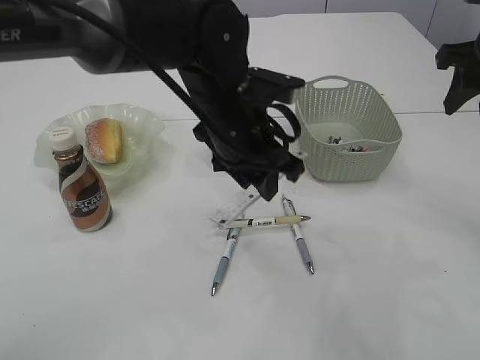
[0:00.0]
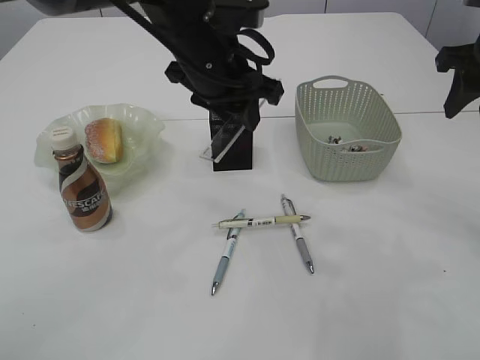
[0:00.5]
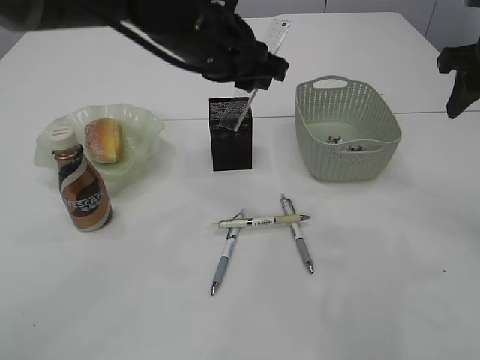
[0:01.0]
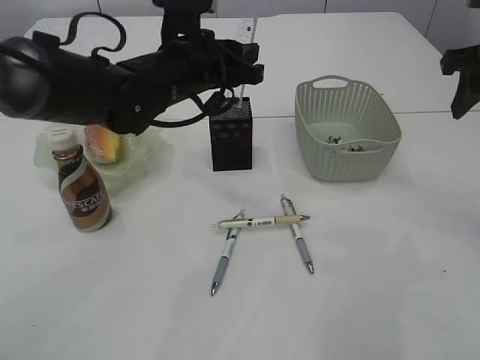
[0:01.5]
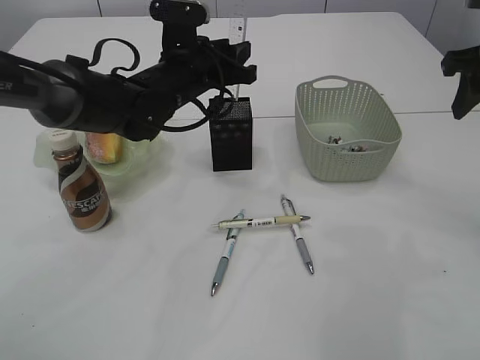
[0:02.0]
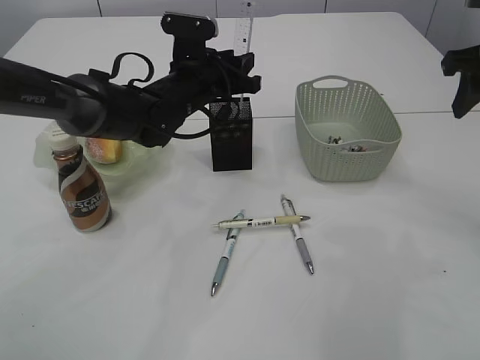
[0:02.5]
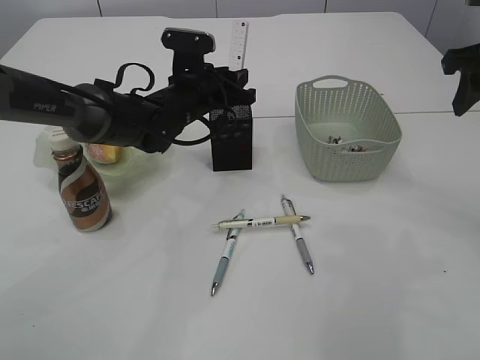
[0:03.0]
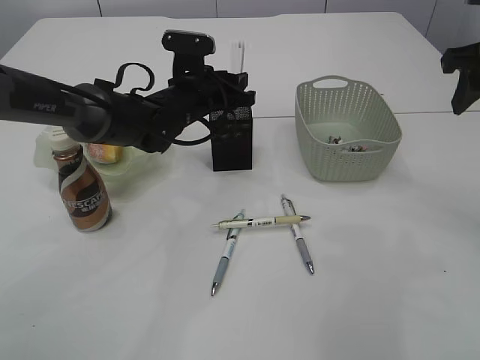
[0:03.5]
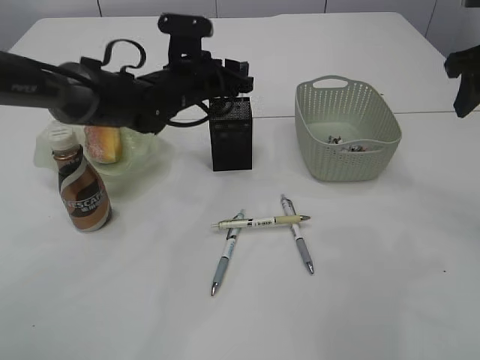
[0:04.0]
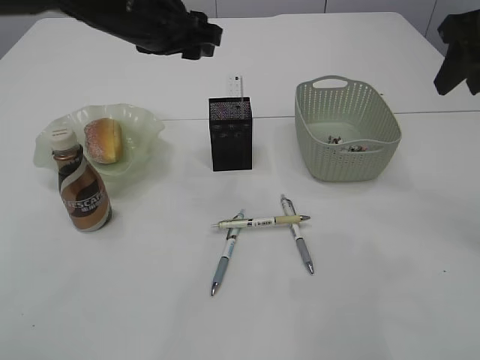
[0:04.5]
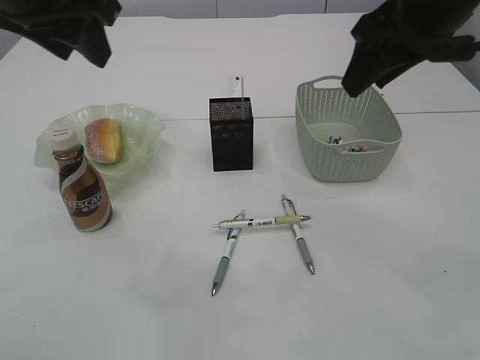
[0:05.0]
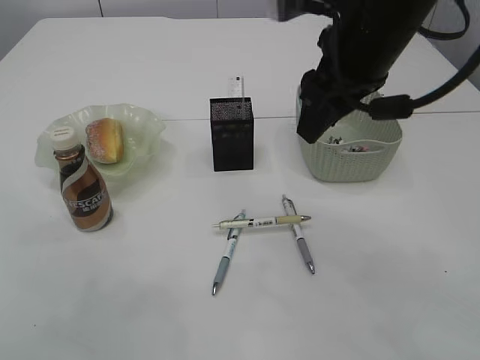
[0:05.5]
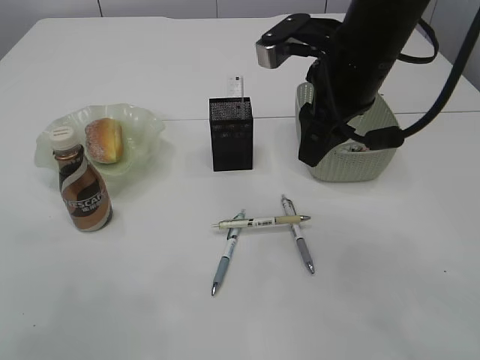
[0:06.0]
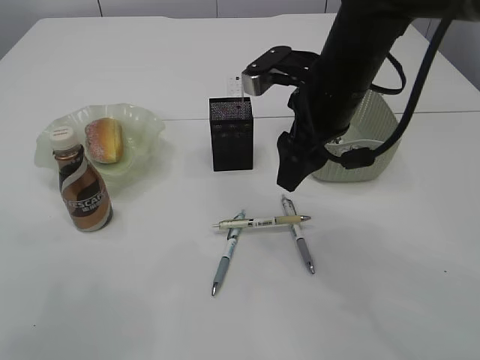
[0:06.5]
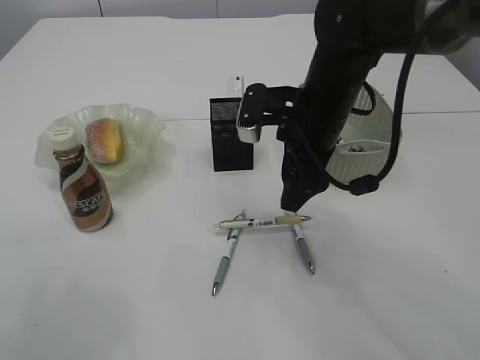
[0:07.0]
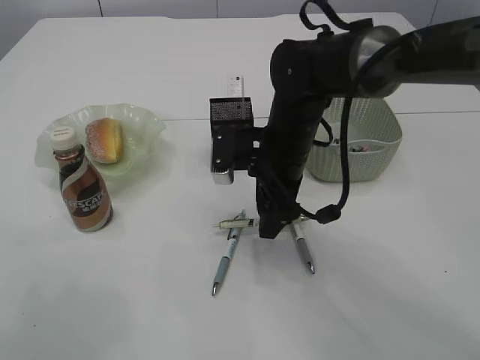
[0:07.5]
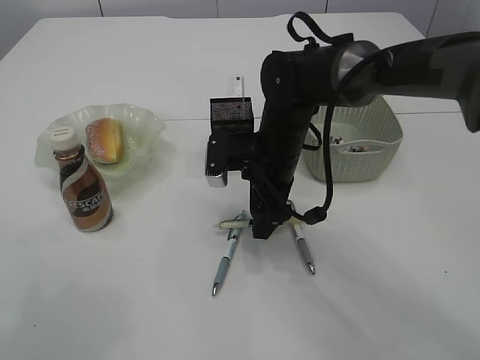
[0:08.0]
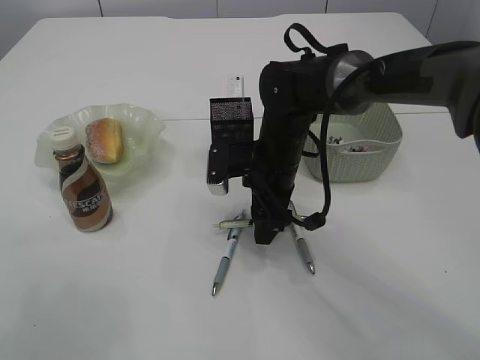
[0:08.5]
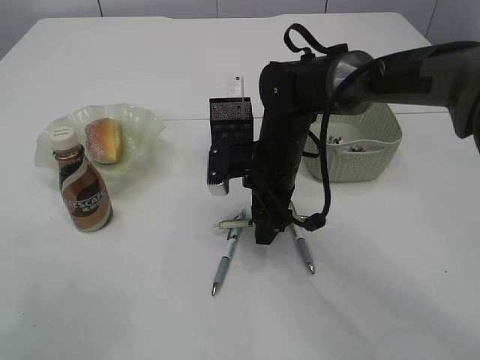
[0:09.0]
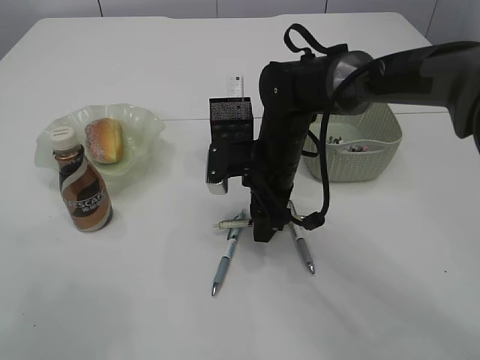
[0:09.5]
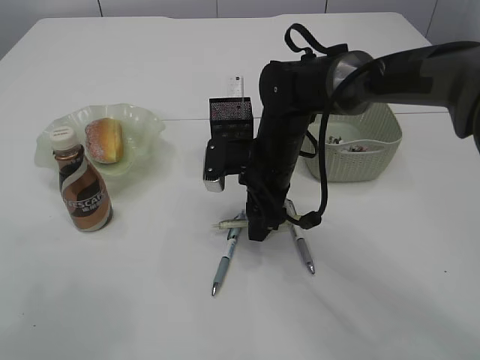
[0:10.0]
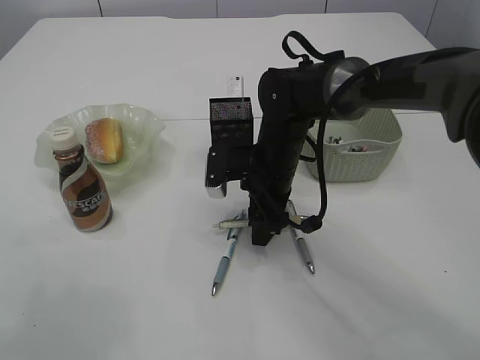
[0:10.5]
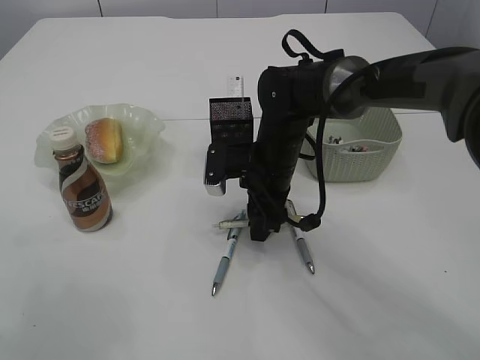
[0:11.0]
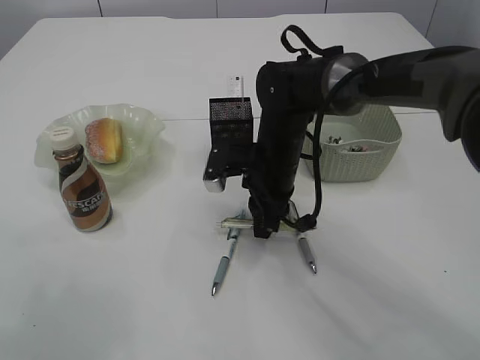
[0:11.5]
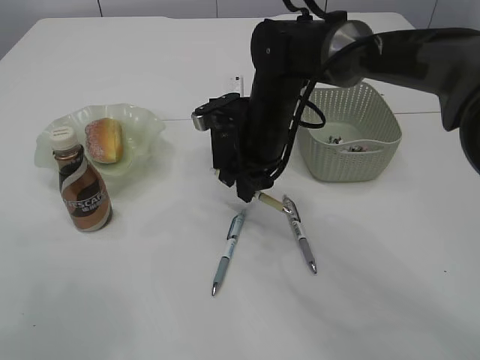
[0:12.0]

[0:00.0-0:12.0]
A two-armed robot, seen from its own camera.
Step, 0:00.0 to 0:04.0: Place the ruler into the pen holder.
0:00.0 to 0:02.0: The left gripper shifts approximately 10 cm forward and to the left.
0:02.0 to 0:04.0: The grippers move only a little.
0:04.0 to 0:06.0: The left gripper shifts roughly 35 cm upward, to the left and backward; the right gripper heads to the left, covering approximately 20 cm.
0:06.0 to 0:08.0: The right gripper travels downward and to the left by about 15 cm.
0:08.0 to 0:10.0: The two grippers keep their place.
0:10.0 to 0:12.0: The right gripper closes up.

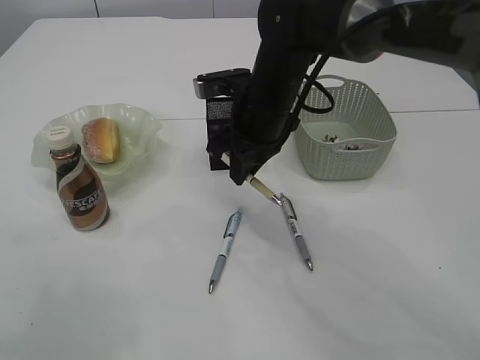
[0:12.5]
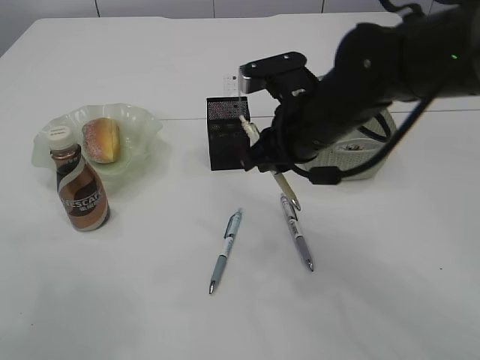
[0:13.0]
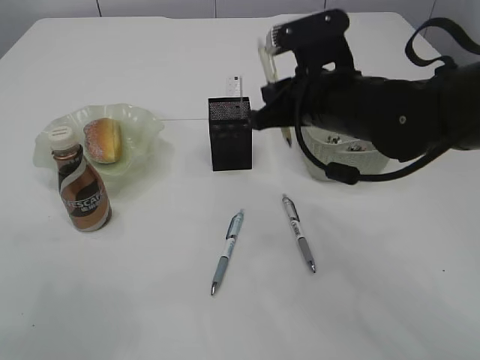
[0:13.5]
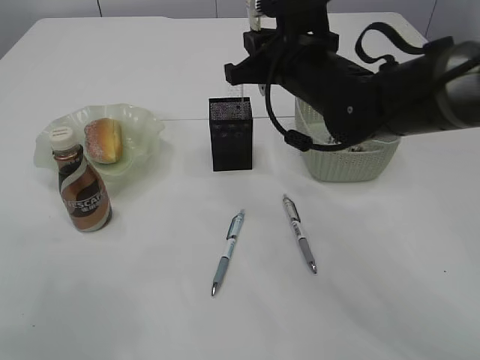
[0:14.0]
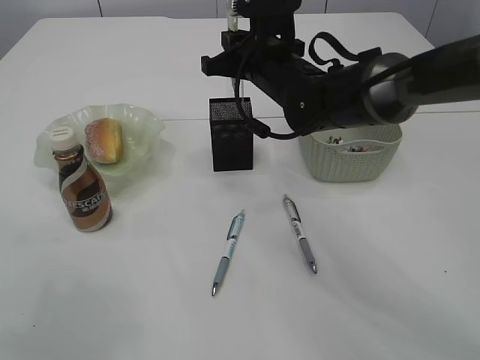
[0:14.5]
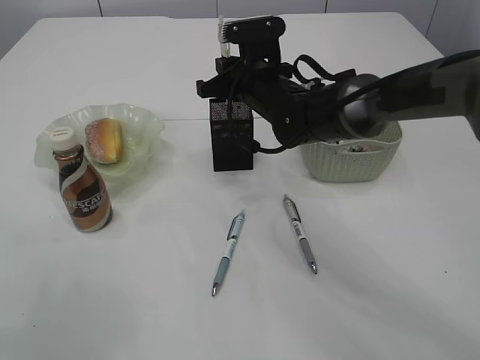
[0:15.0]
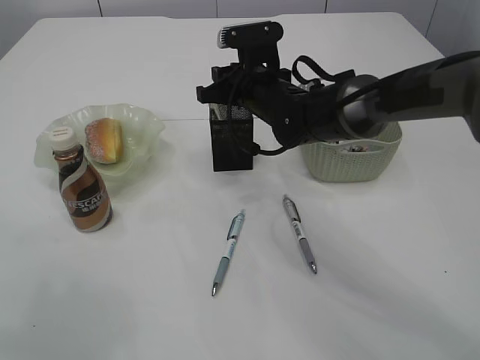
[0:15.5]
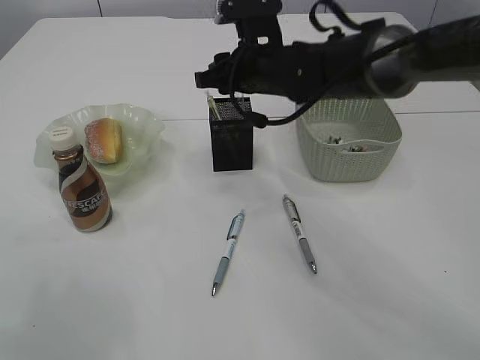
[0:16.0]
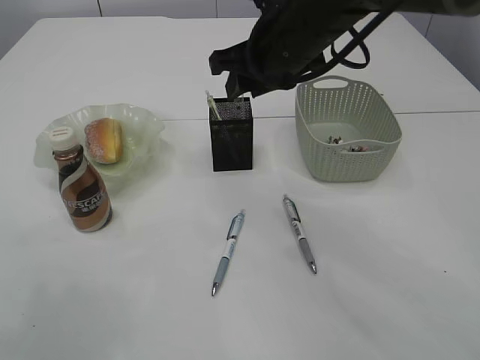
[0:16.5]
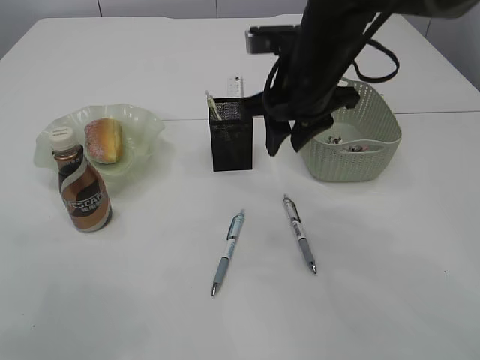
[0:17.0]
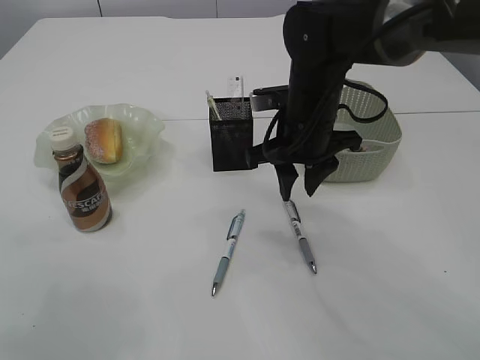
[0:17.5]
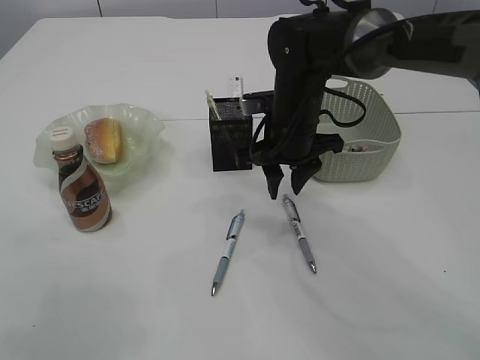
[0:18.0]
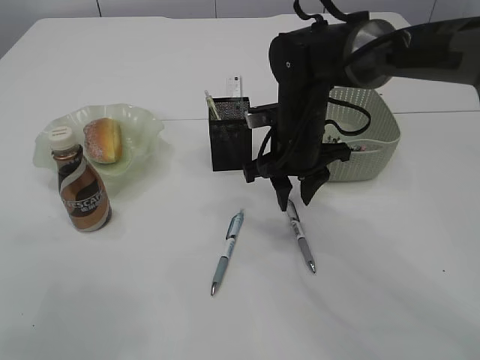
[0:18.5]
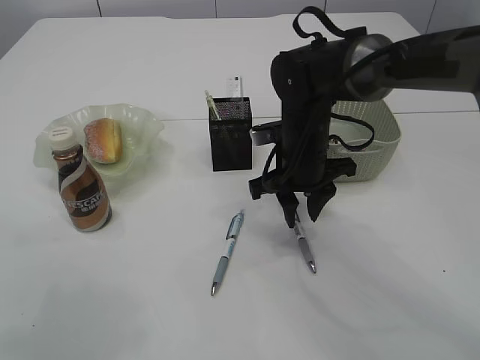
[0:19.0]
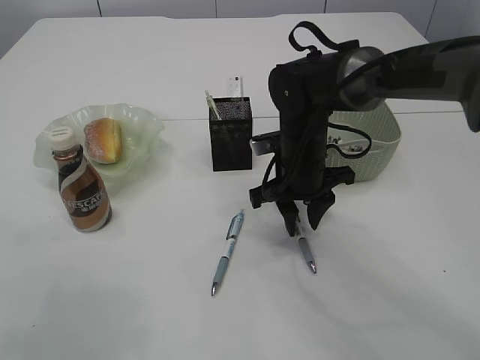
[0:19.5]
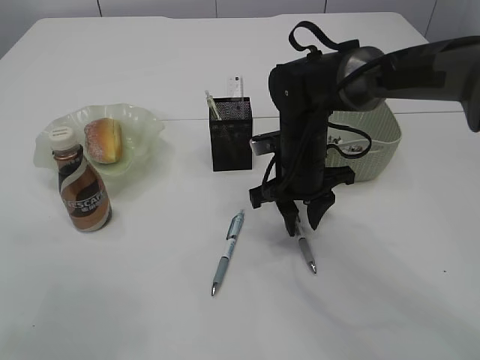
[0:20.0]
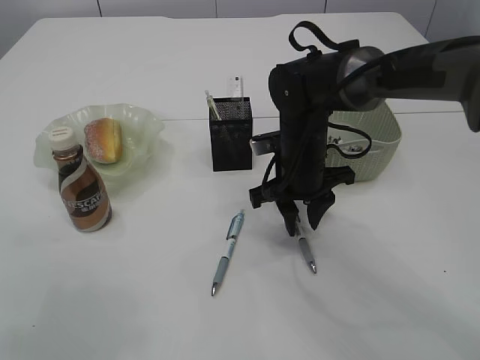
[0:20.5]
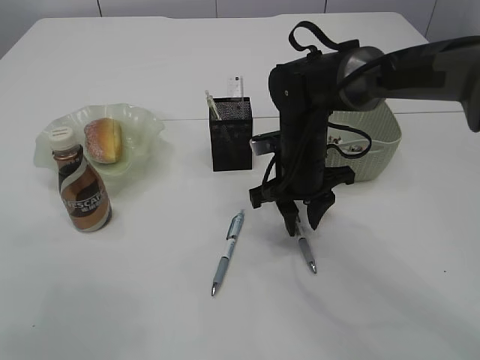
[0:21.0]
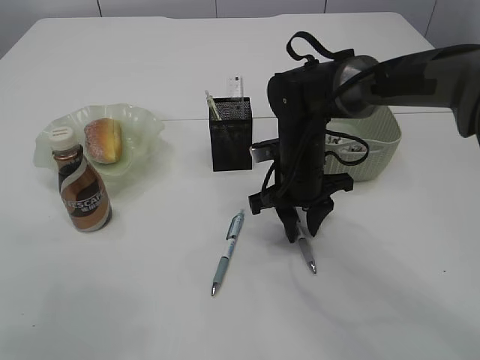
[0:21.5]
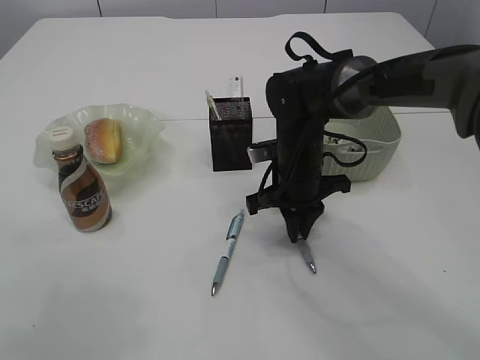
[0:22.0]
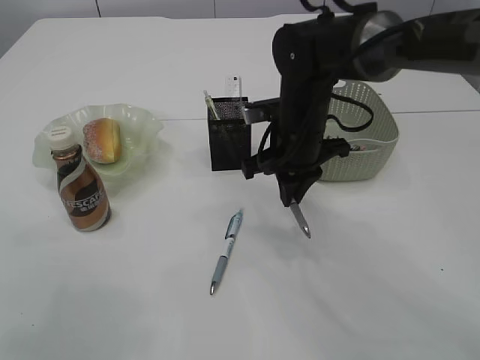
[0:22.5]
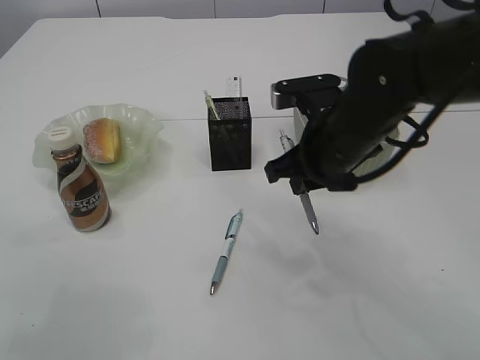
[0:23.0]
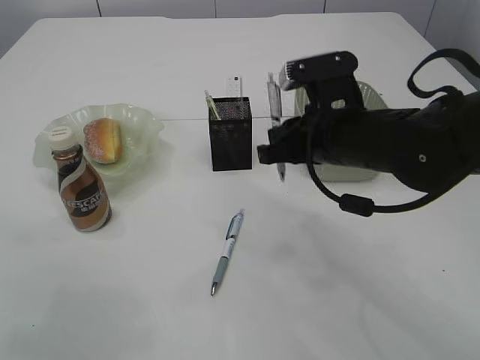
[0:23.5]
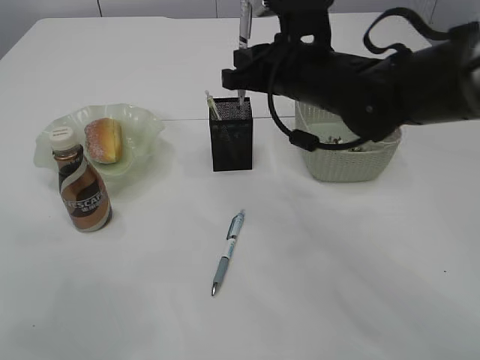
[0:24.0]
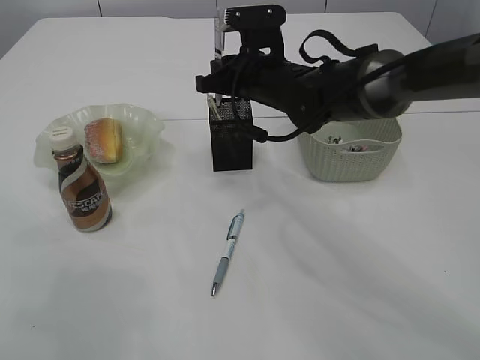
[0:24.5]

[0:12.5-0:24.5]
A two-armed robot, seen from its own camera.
Step, 0:13.0 to 0:16.0: Place the pen into the pen holder.
Step, 0:16.5 to 0:22.5: Pick up the pen with right arm.
0:12.5 to 0:14.5: The right gripper reaches about 5 cm backward, then returns.
0:14.5 to 0:16.5: The right gripper moves upward, some 5 cm, and opens its fingers.
0:16.5 to 0:18.5: The right gripper heads downward, covering roughly 10 cm.
0:18.5 to 0:20.5: There are only small adjustments of the grippers.
0:20.5 to 0:22.5: The right gripper closes its fingers.
0:22.5 to 0:24.5: The right gripper is displaced forward by approximately 5 cm.

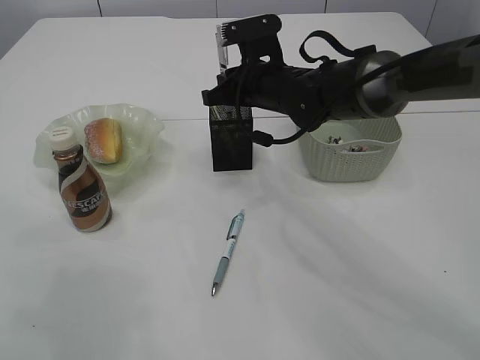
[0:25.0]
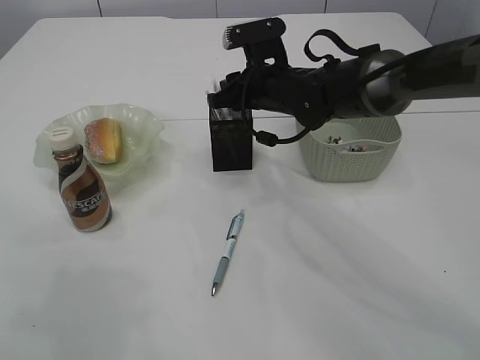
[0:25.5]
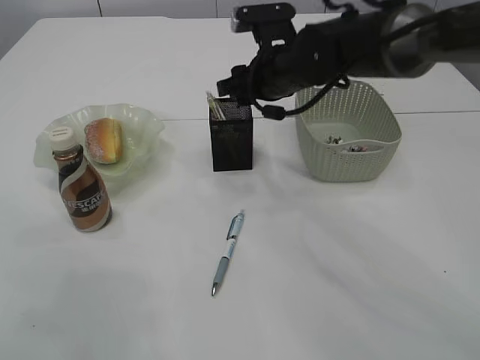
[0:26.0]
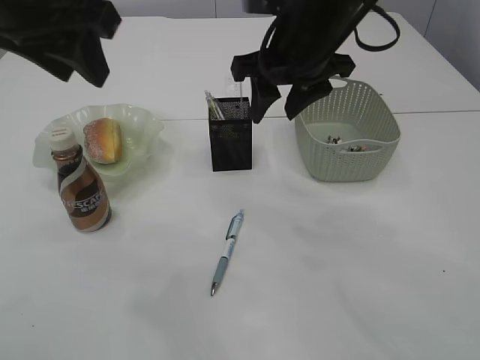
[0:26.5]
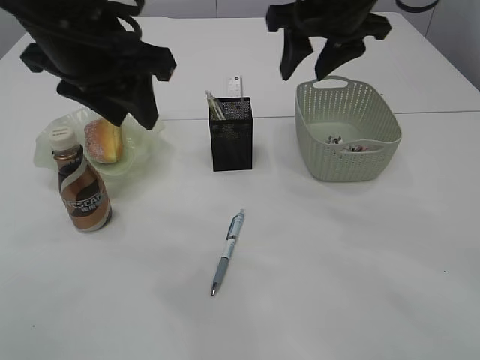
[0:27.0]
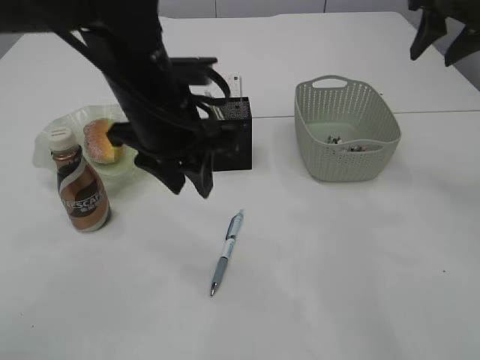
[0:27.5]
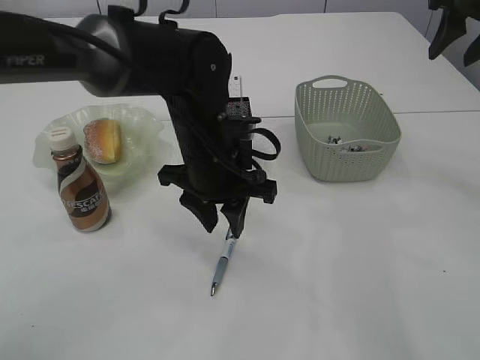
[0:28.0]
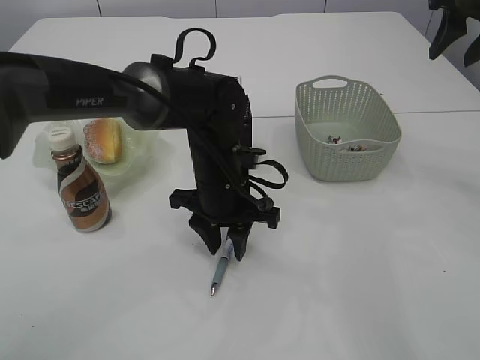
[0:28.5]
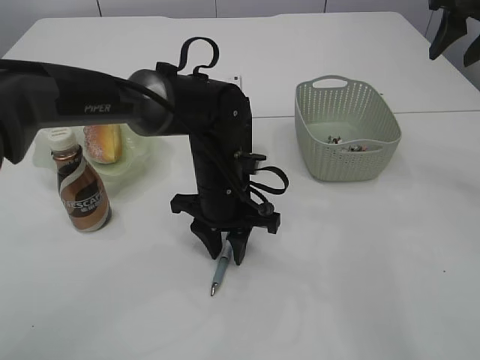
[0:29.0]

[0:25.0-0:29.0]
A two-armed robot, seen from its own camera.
0:25.0 to 0:27.0: The left gripper moves to the right and downward, roughly 15 cm. Meanwhile the right gripper goes some 15 cm upward and to the right, and opens up.
0:27.0 to 0:29.0: The right gripper goes approximately 20 cm to the right. Meanwhile the left gripper shifts some 25 cm downward and to the right.
